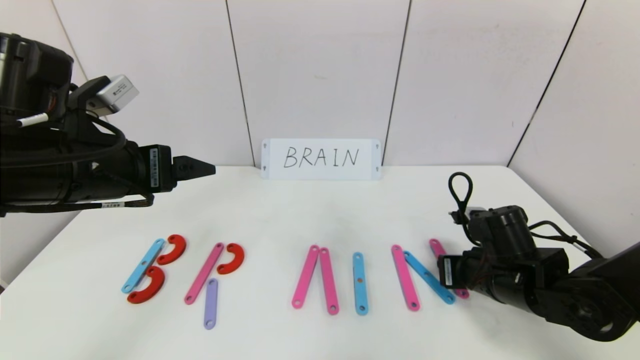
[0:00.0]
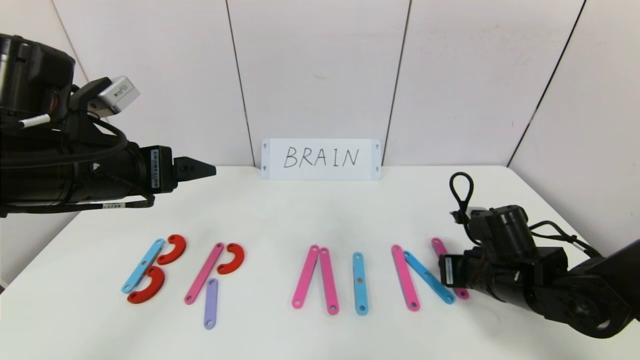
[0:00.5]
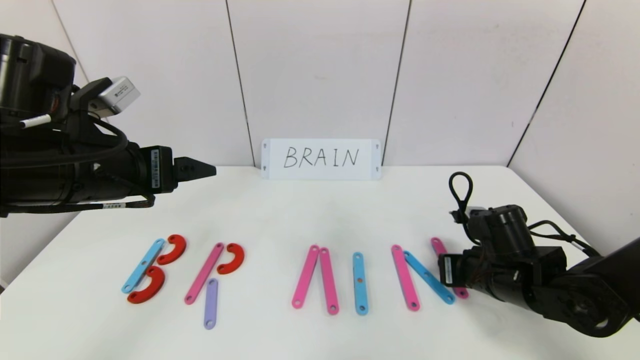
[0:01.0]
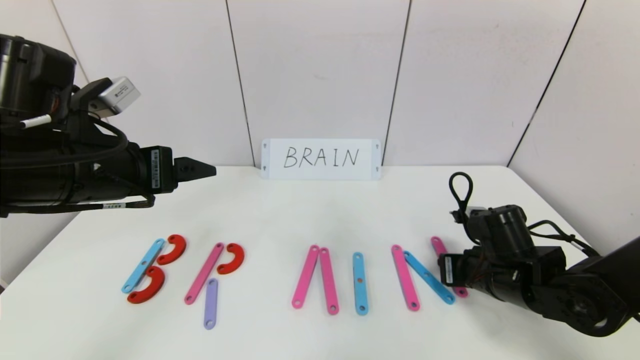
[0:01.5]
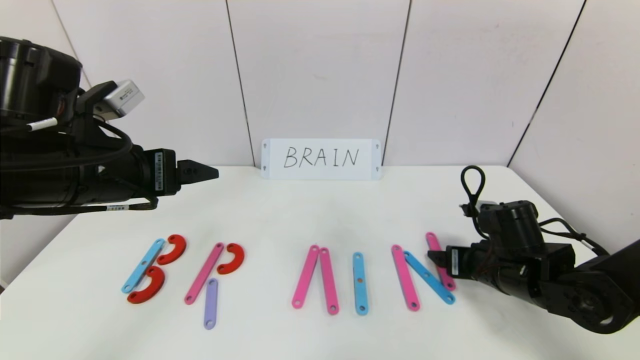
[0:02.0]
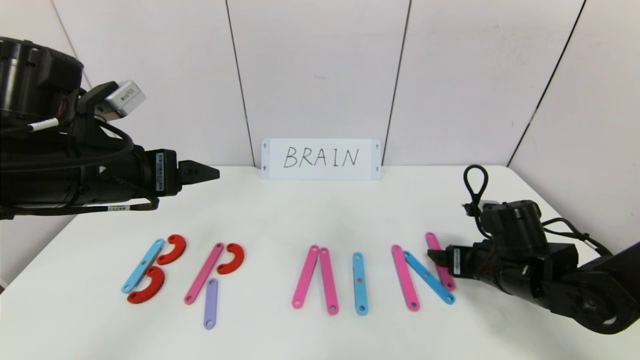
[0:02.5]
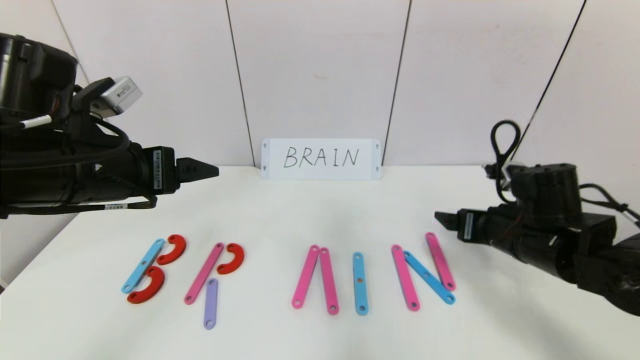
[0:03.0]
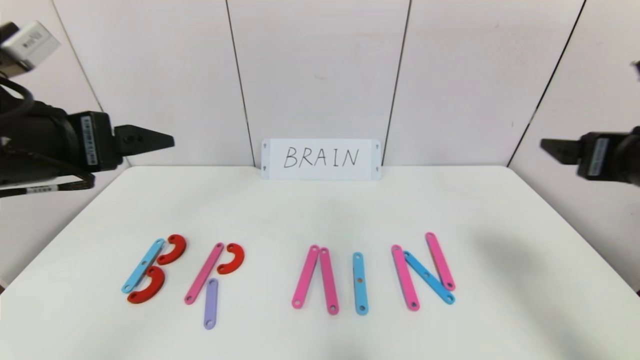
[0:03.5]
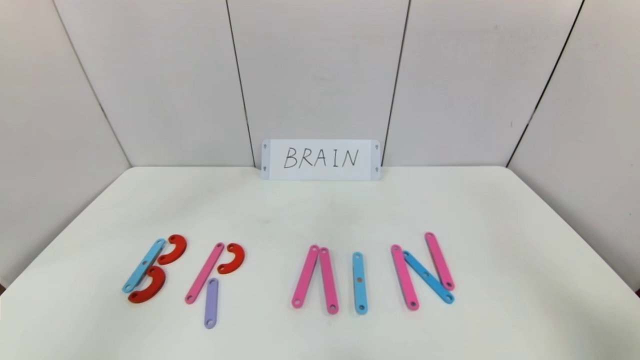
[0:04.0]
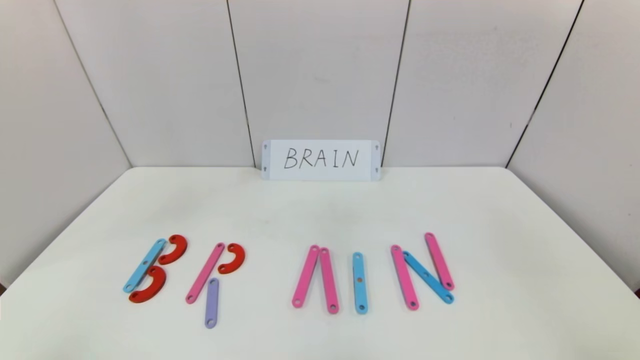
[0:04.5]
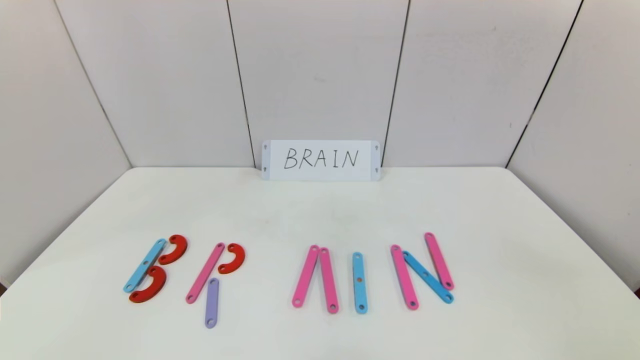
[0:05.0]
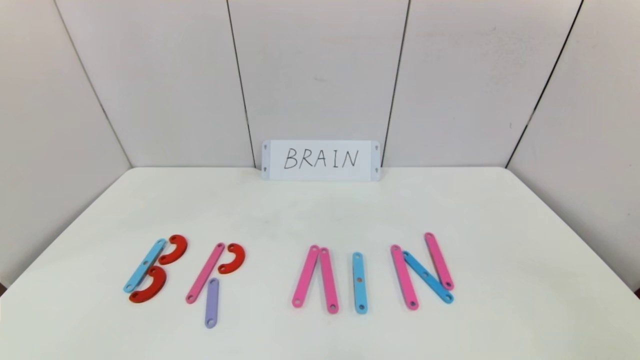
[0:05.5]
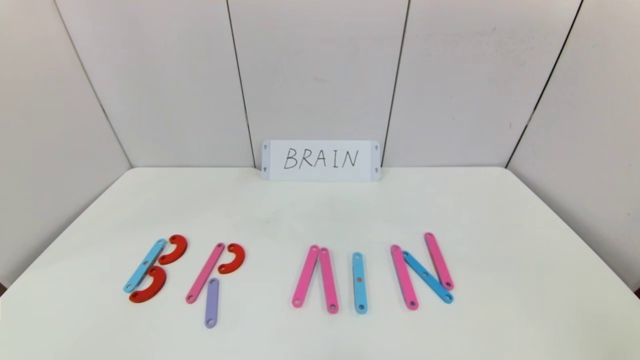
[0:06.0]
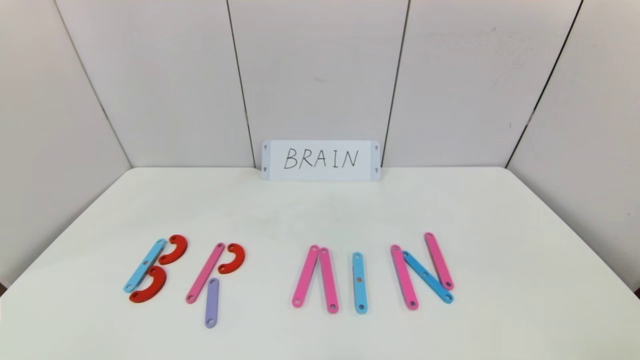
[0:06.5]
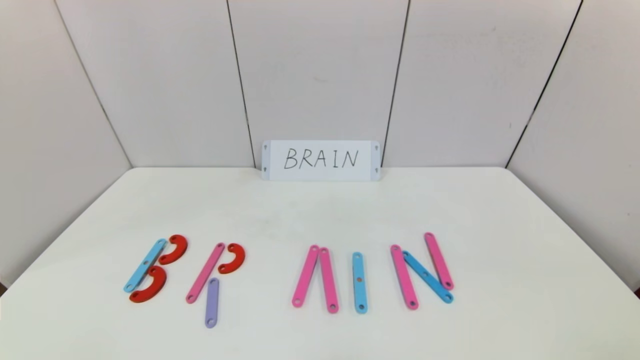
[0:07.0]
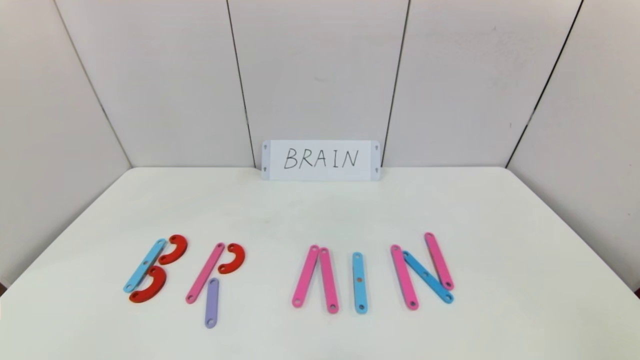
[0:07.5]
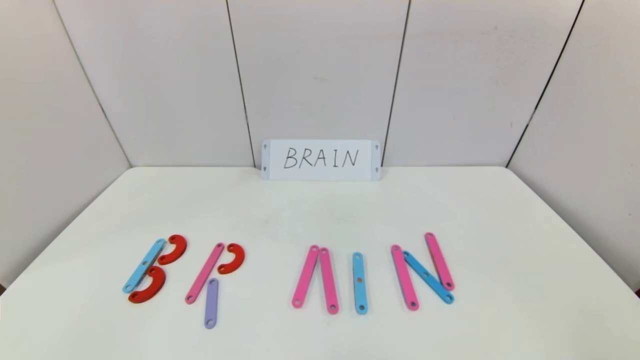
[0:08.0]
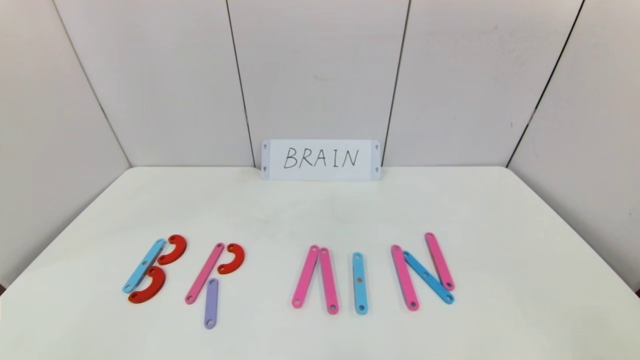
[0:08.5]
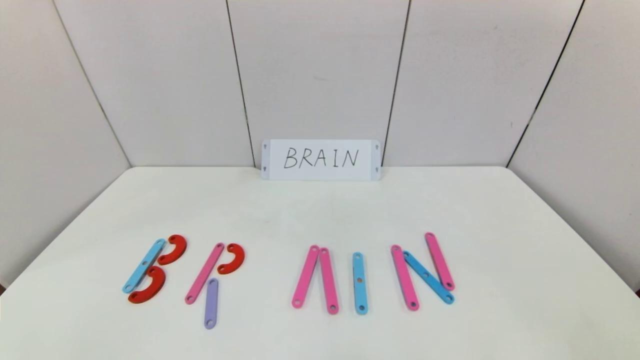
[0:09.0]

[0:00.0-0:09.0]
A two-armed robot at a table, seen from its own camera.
Task of the whole recording: rearrange the word baai as brain.
Step, 0:00.0 to 0:02.5: Place the character N after character I.
0:00.0 to 0:02.0: The right gripper opens up.
0:02.0 to 0:04.5: The right gripper goes approximately 40 cm backward and upward. Meanwhile the left gripper is displaced backward by roughly 25 cm.
